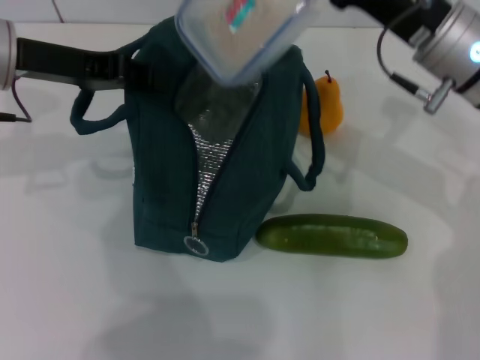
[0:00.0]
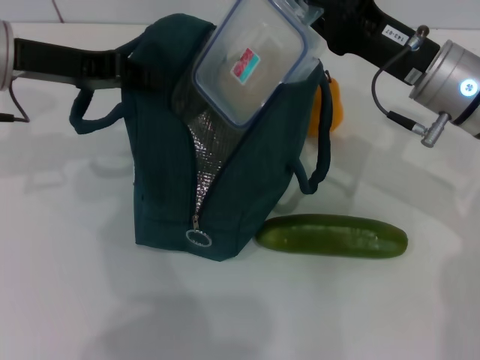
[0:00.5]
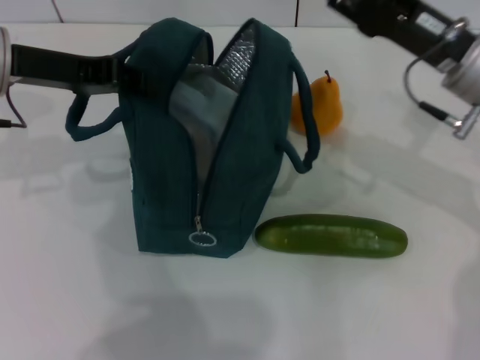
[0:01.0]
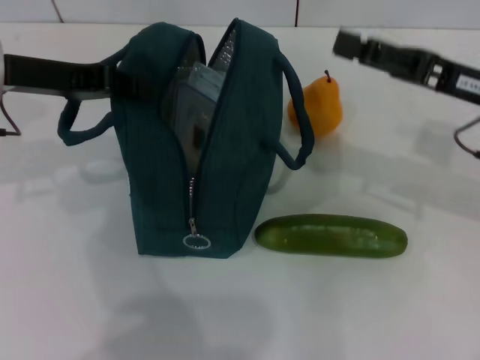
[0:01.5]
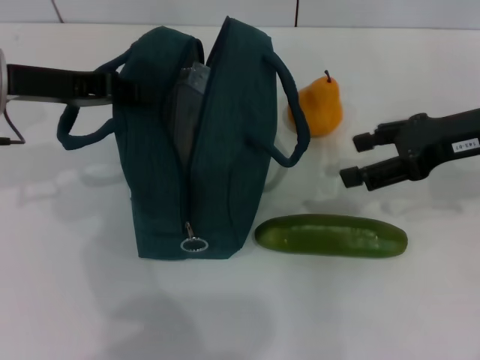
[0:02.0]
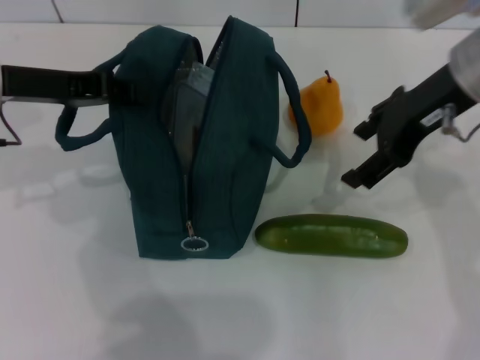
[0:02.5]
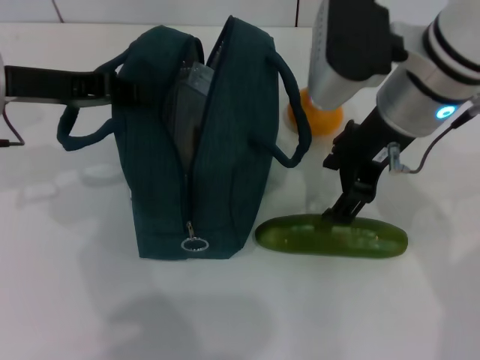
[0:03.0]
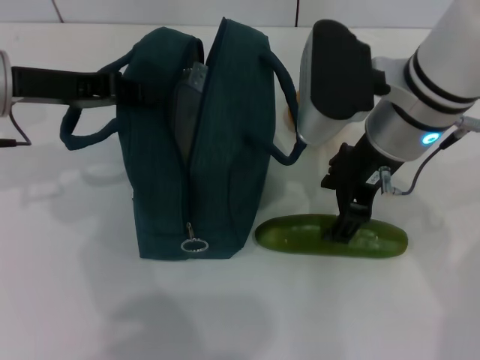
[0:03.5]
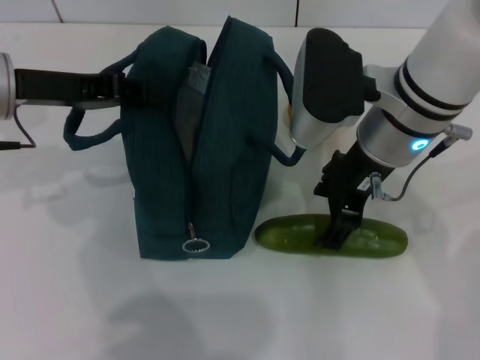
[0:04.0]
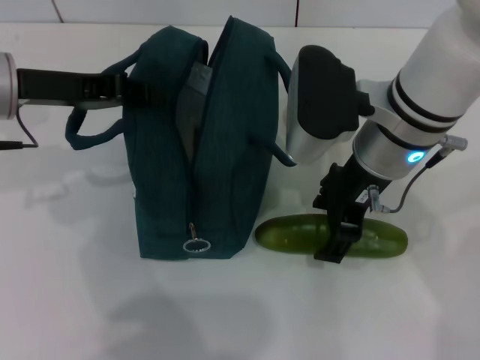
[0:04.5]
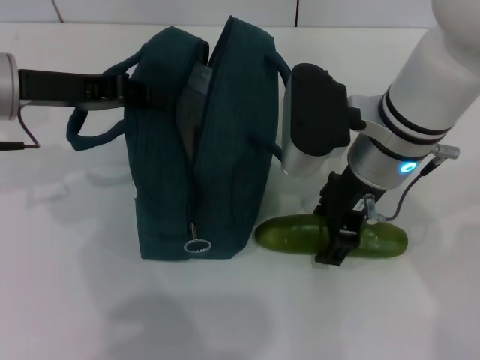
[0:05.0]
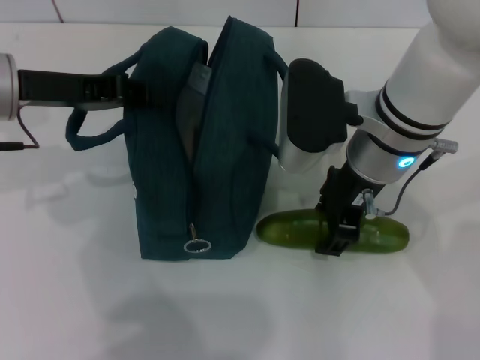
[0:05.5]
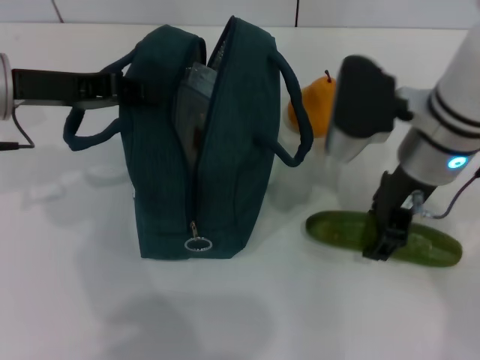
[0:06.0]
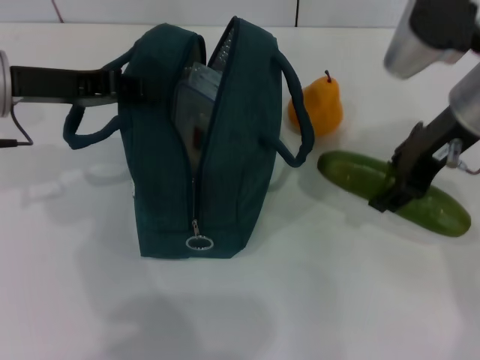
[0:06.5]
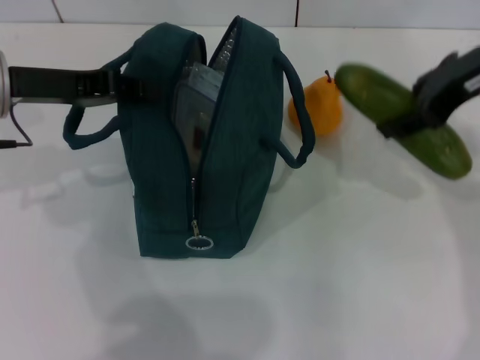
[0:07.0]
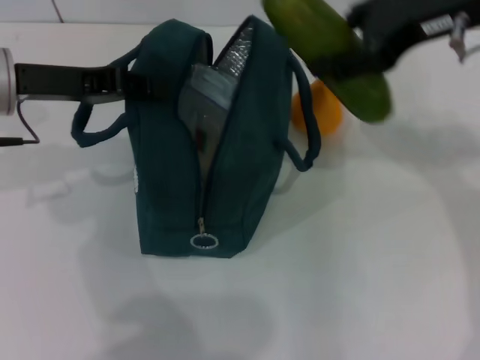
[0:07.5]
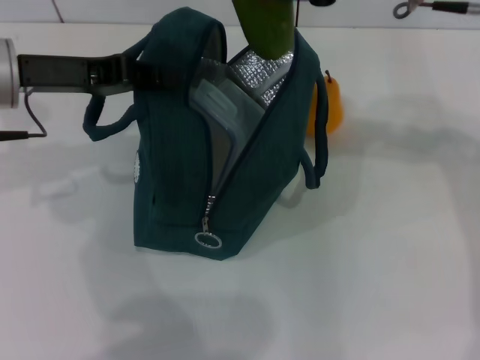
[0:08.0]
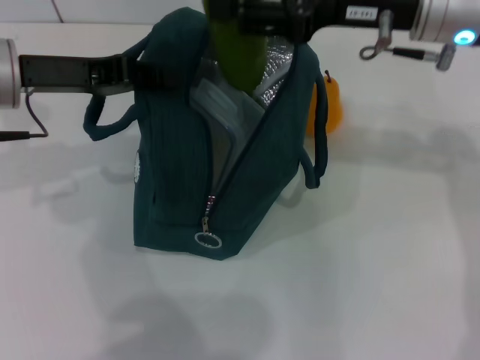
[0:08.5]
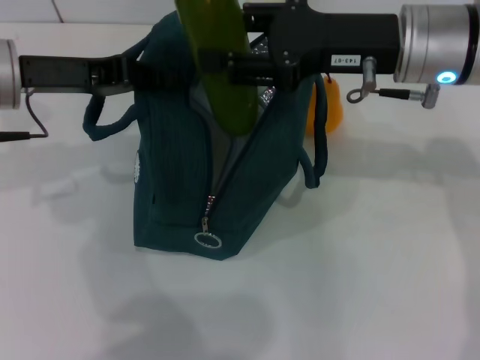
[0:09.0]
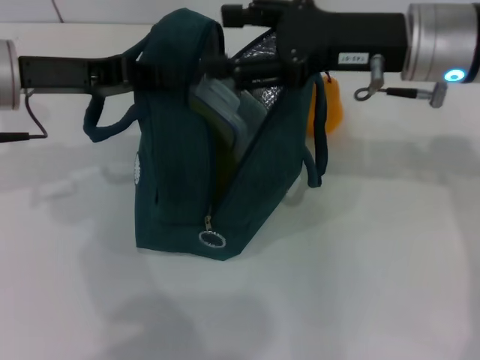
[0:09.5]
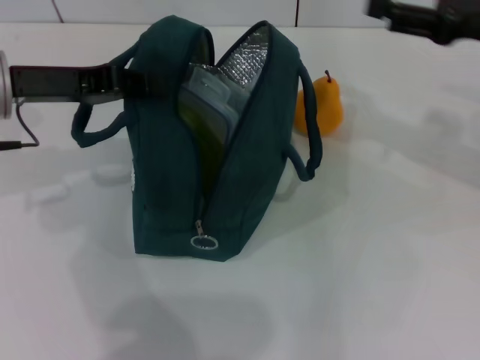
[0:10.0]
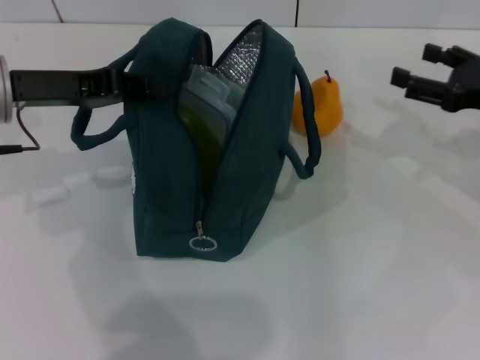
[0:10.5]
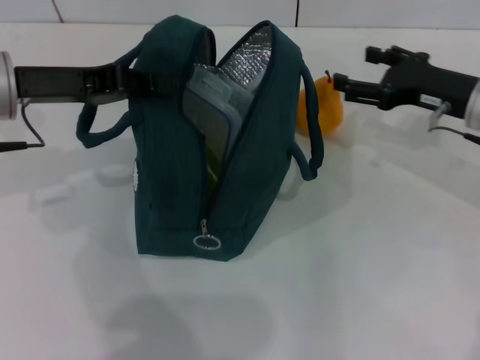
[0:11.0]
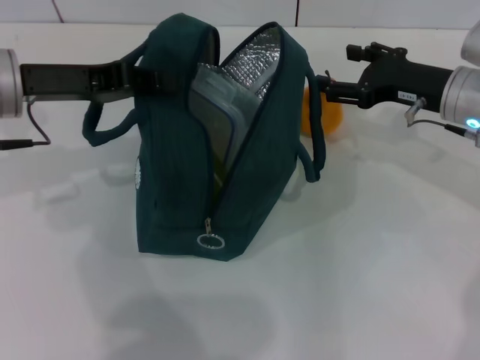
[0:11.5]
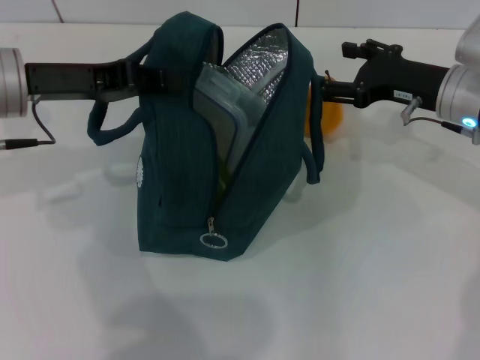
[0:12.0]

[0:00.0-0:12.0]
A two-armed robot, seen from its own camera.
Step, 0:01.0 to 0:05.0: Pick up the cucumber with your right hand.
Step, 0:05.5 to 0:09.0: Put the cucumber into the lunch bag with your right hand.
0:00.0 to 0:02.0: The right gripper moves to the right, roughly 10 cm, and opens its fingers.
0:02.0 to 0:04.0: The right gripper shifts some 15 cm to the left.
0:04.0 to 0:06.0: There are only small adjustments of the grippers.
0:06.0 to 0:08.0: The right gripper goes approximately 10 cm upward.
0:08.0 to 0:10.0: The right gripper heads to the right and downward, covering approximately 15 cm.
0:10.0 to 0:12.0: The right gripper travels downward and to the left by some 10 cm.

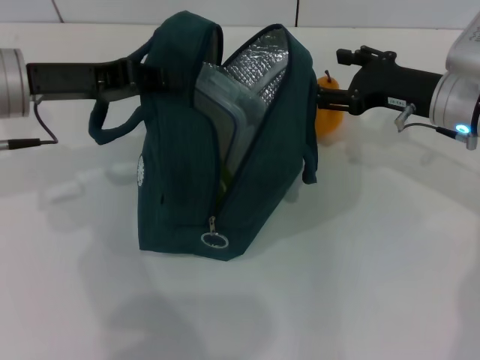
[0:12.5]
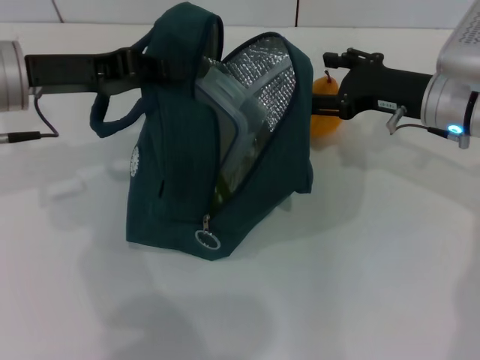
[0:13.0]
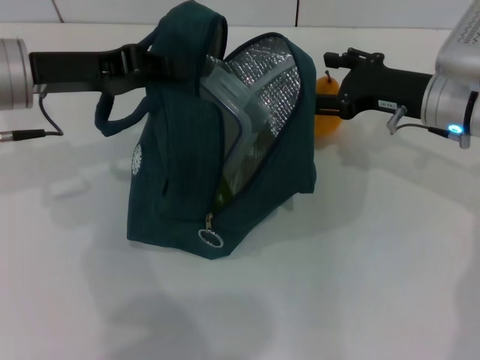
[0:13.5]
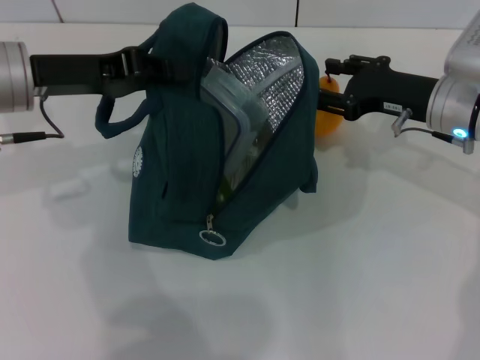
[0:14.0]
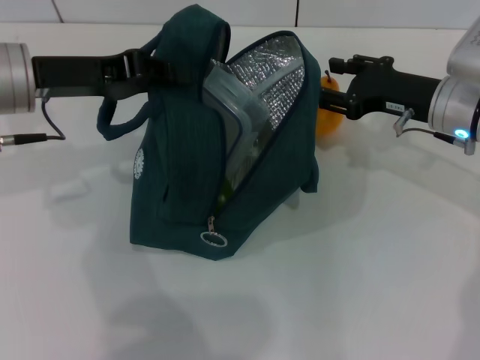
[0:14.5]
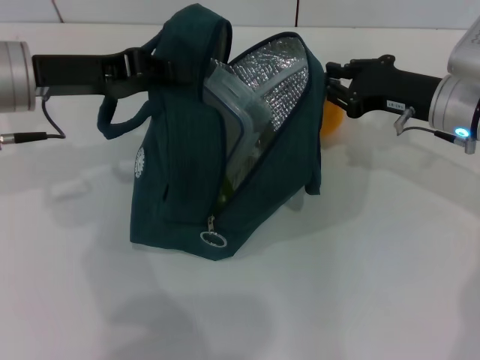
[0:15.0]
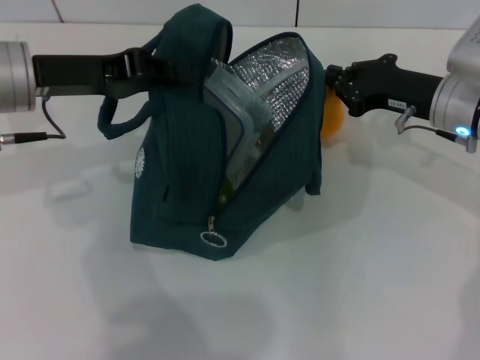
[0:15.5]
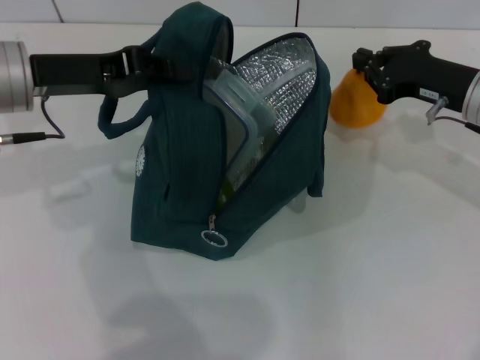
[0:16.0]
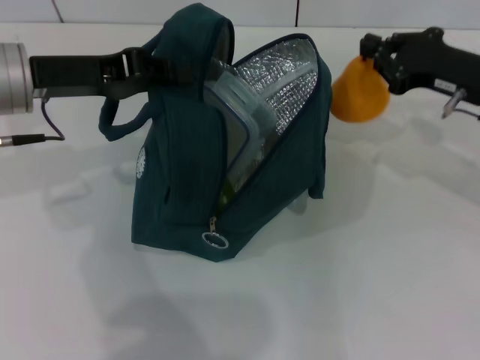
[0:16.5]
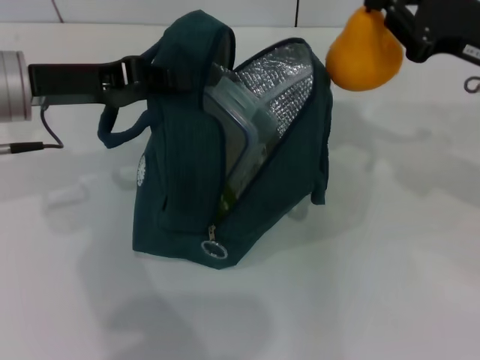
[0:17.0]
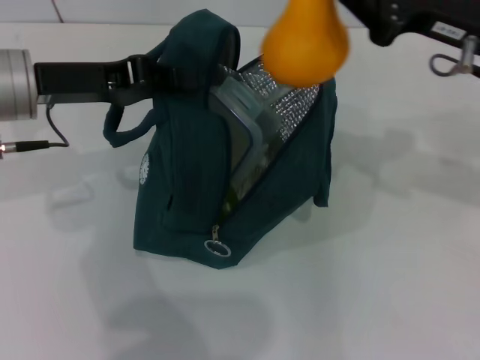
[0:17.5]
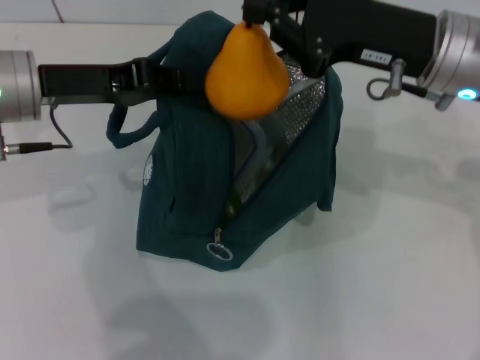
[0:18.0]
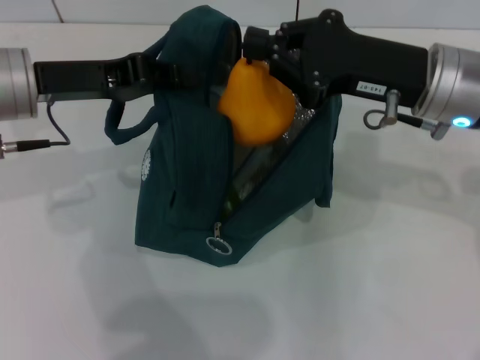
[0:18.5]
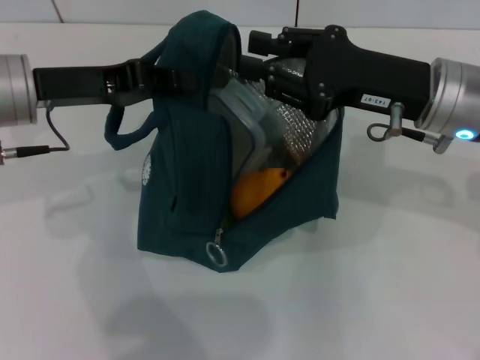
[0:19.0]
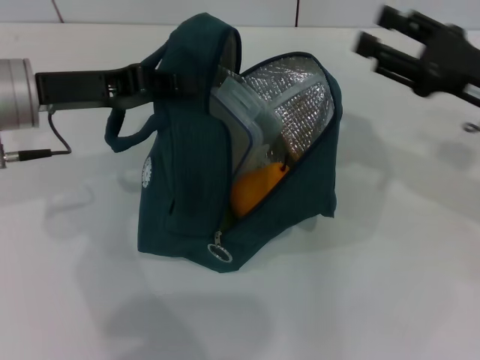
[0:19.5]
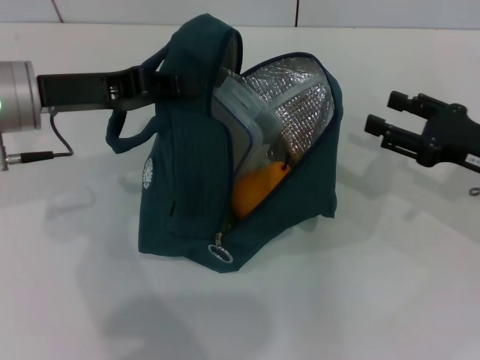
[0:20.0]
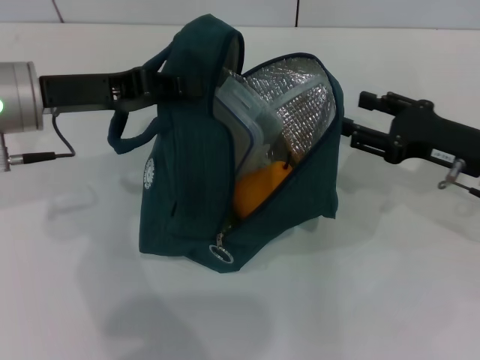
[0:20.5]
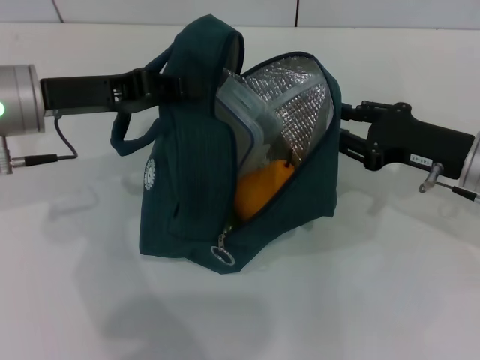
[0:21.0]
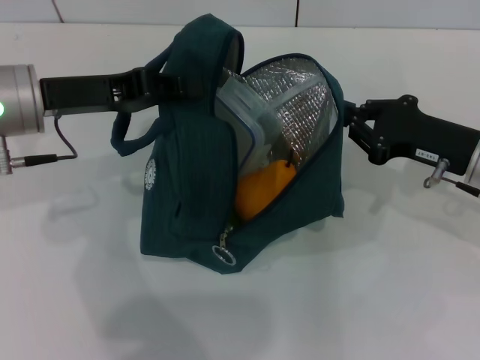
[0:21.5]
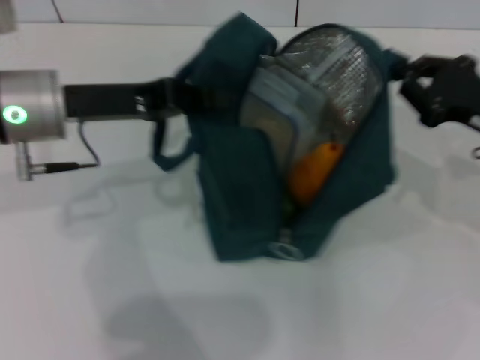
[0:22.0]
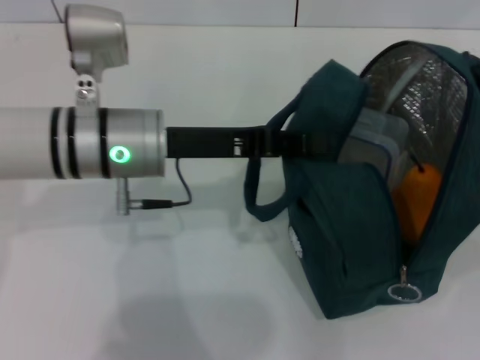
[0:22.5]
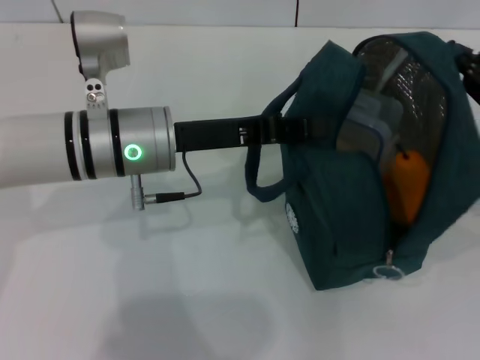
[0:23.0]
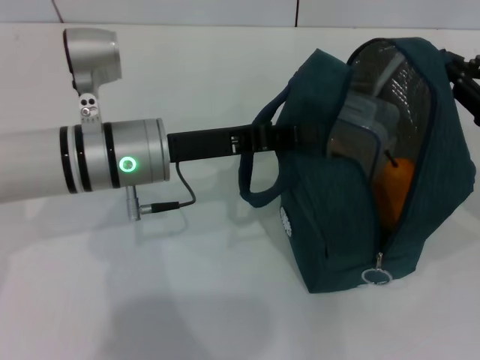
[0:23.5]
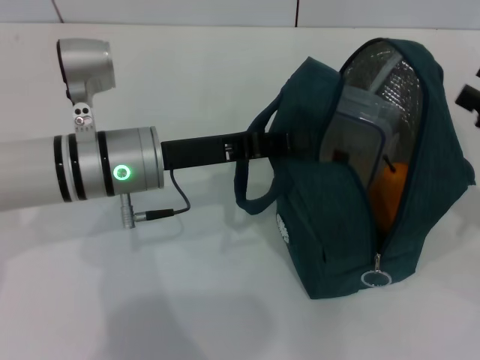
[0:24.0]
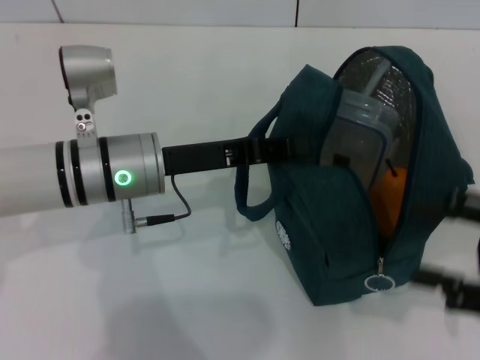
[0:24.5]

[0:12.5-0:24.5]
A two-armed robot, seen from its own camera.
Step, 0:12.5 to 0:15.0: Grab the pear with your right hand.
Step, 0:19.5 to 0:23.5: Hold the lunch bag with your right hand.
0:12.5 to 0:14.5: Both grippers stay about where they are.
0:14.5 to 0:16.5: The right gripper shifts by about 5 cm, and closes up.
0:16.5 to 0:18.5: The right gripper shifts about 10 cm to the left.
0:18.5 to 0:20.5: The right gripper heads to the right and downward, covering approximately 10 cm, and opens.
0:20.5 to 0:22.5: The grippers both shift to the right by some 10 cm. The right gripper closes its fingers.
0:22.5 to 0:24.5: The right gripper is displaced backward by some 10 cm, and opens up.

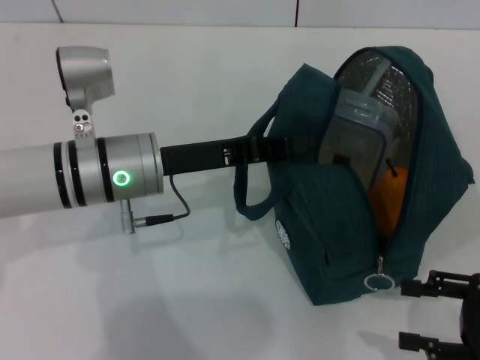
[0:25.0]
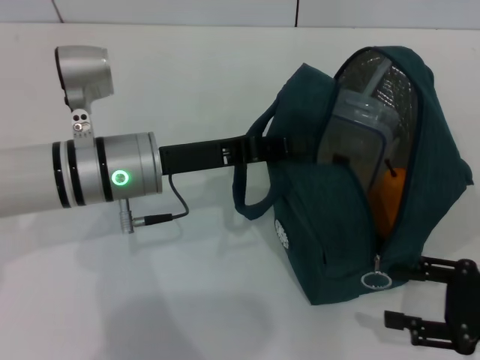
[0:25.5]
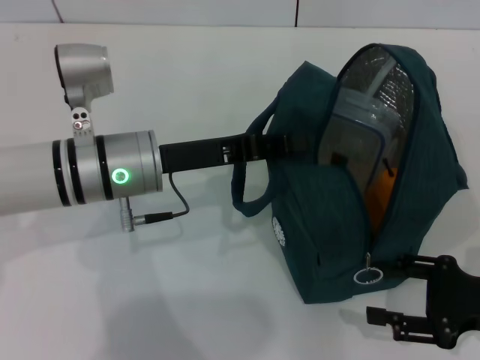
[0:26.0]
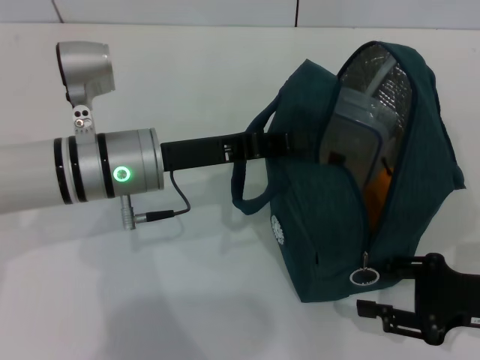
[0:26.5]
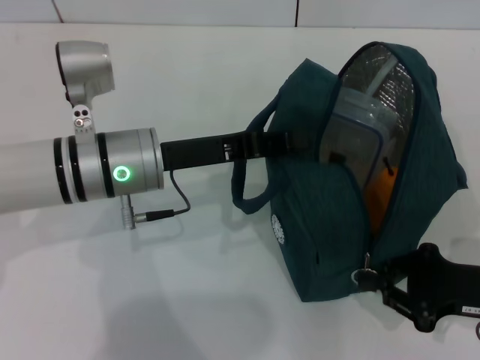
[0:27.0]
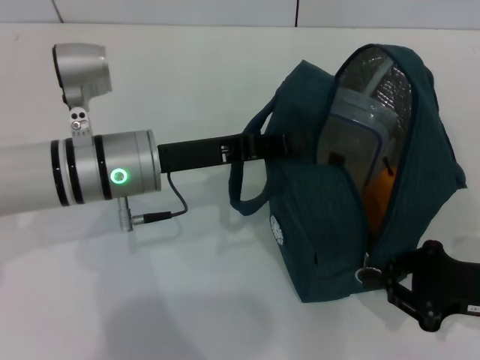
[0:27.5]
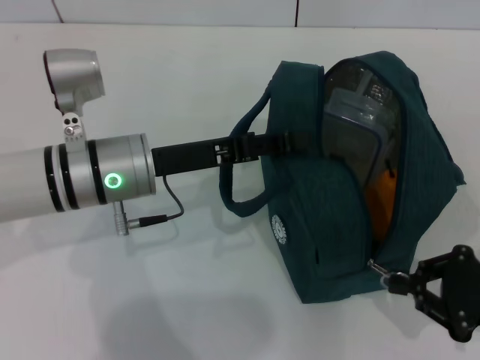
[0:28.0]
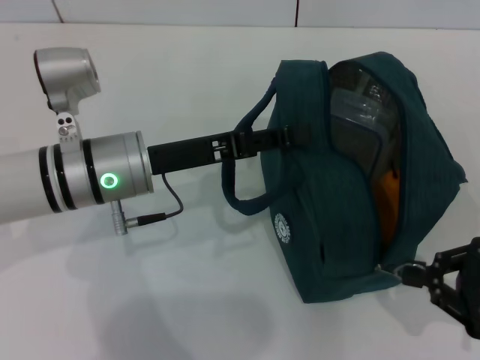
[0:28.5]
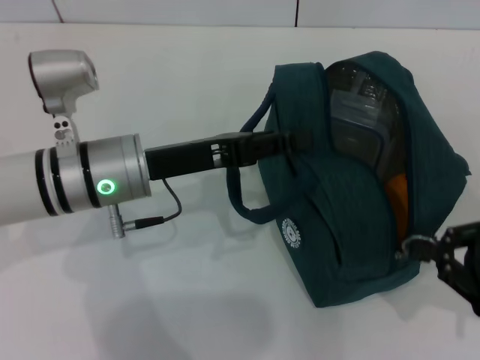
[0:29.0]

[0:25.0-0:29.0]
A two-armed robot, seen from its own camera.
0:25.0 to 0:27.0: The right gripper moves roughly 5 cm, and closes.
0:27.0 to 0:29.0: The right gripper moves roughly 5 cm. Meanwhile the left gripper opens.
